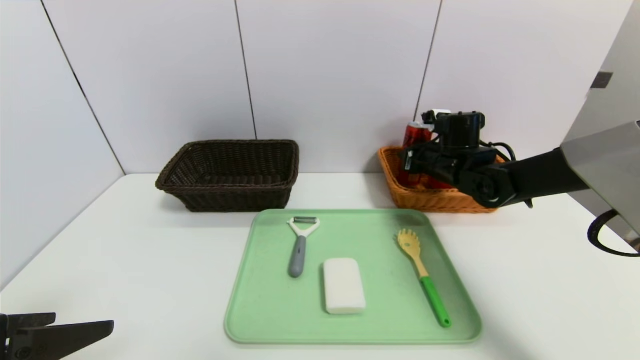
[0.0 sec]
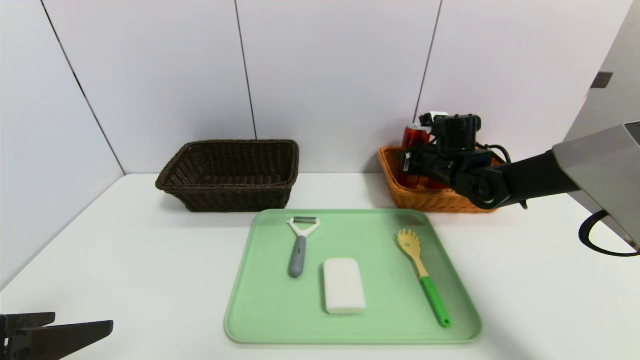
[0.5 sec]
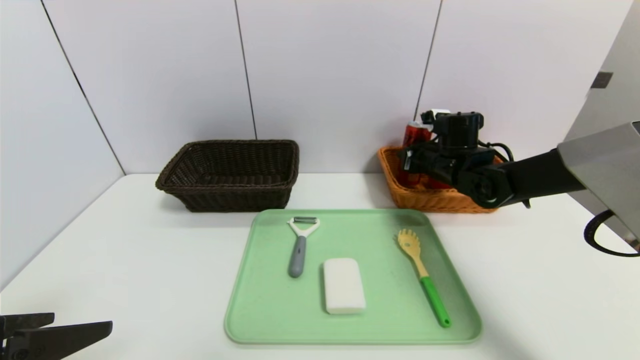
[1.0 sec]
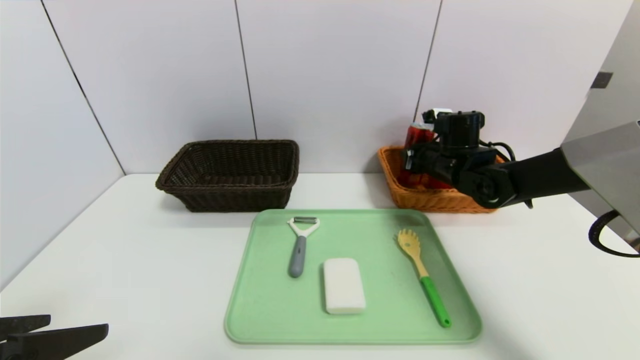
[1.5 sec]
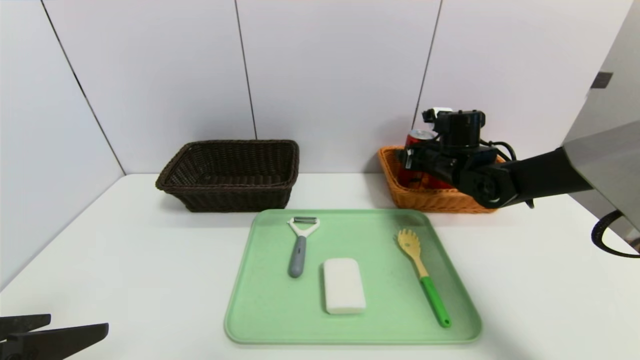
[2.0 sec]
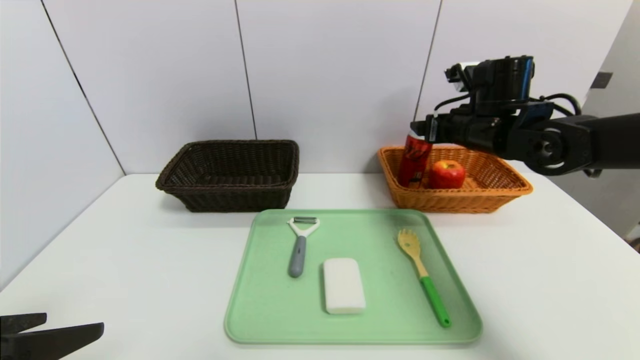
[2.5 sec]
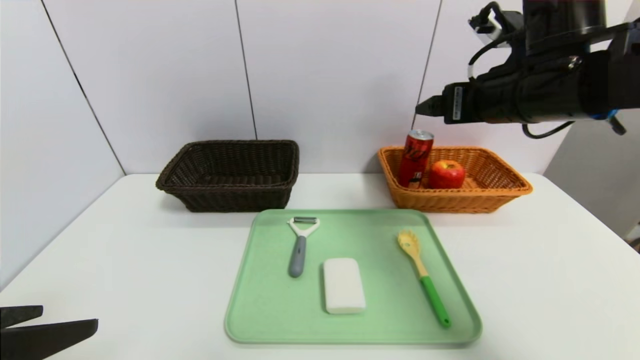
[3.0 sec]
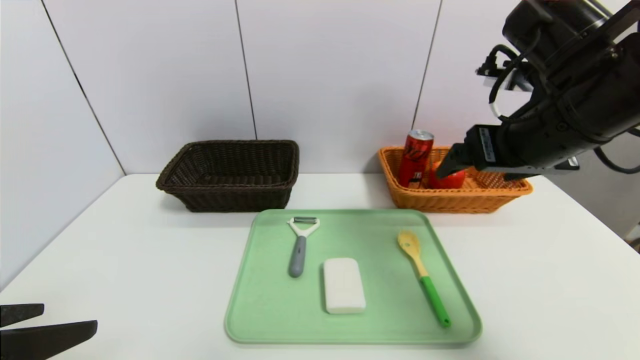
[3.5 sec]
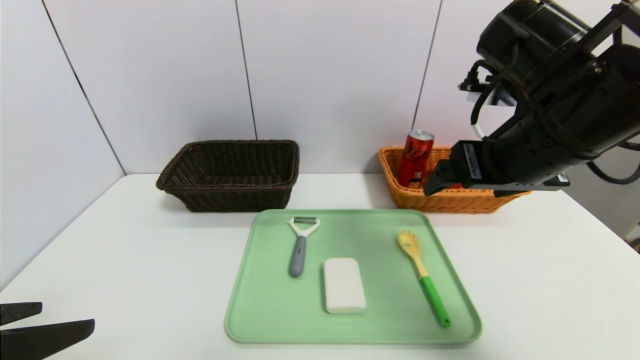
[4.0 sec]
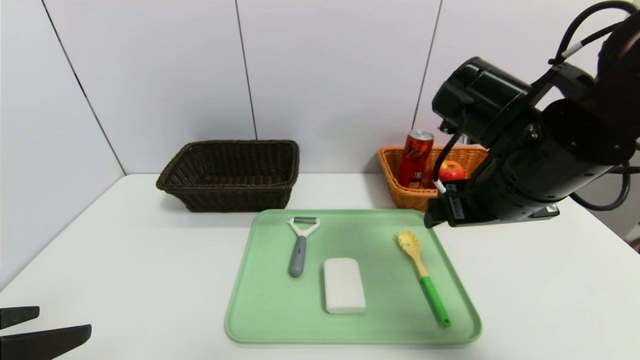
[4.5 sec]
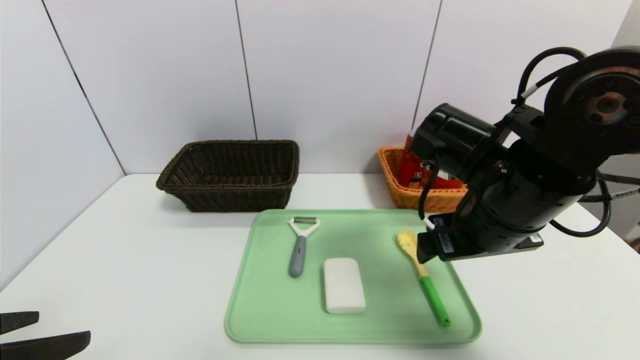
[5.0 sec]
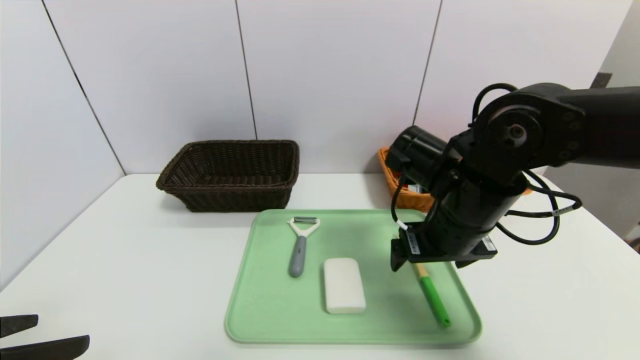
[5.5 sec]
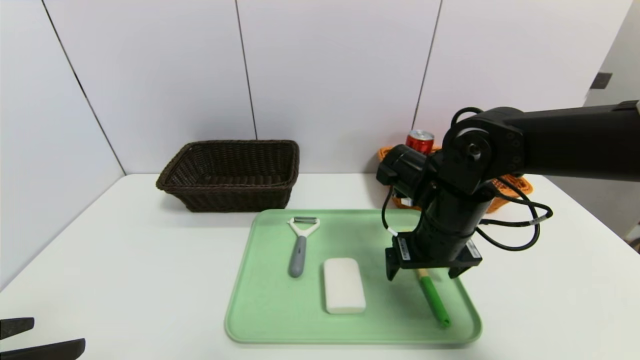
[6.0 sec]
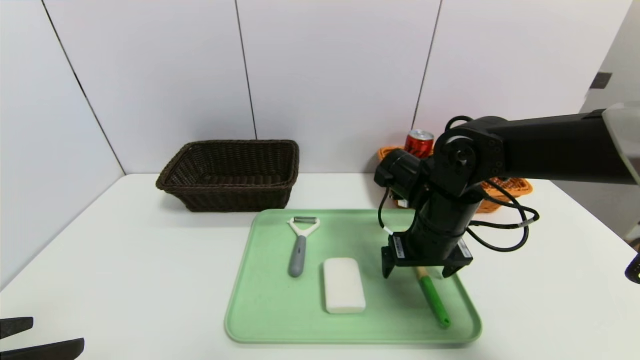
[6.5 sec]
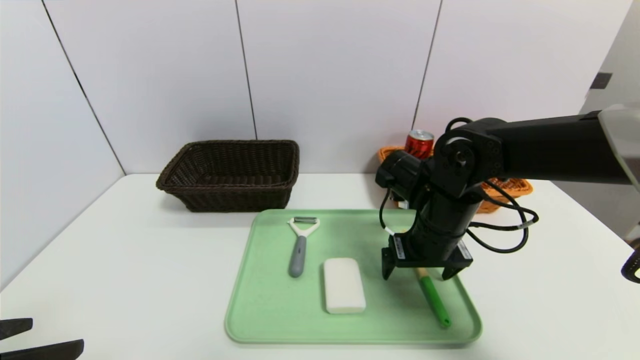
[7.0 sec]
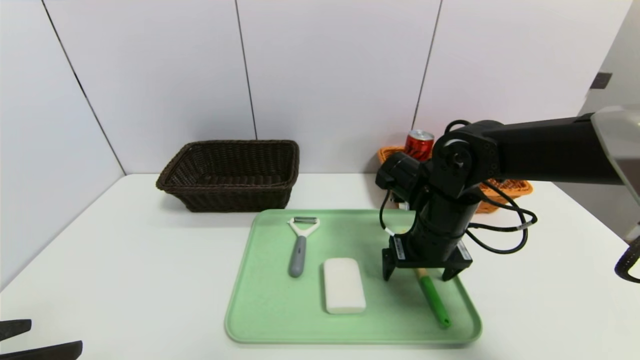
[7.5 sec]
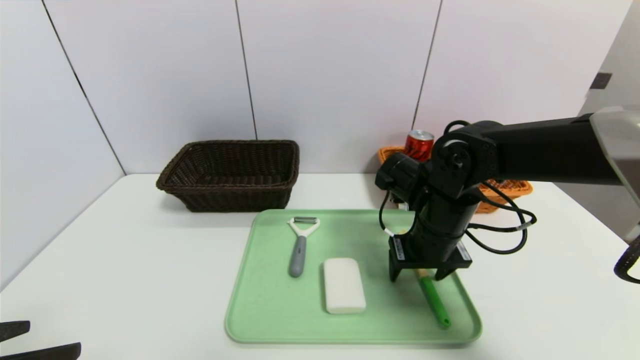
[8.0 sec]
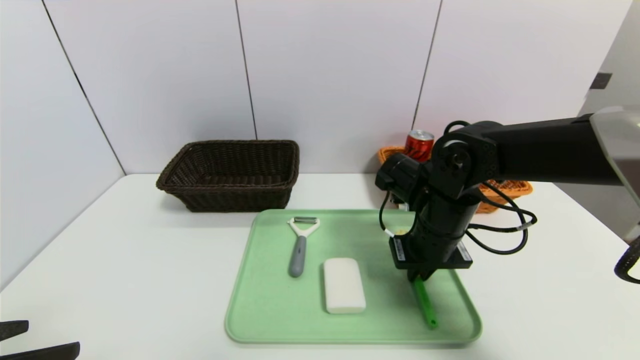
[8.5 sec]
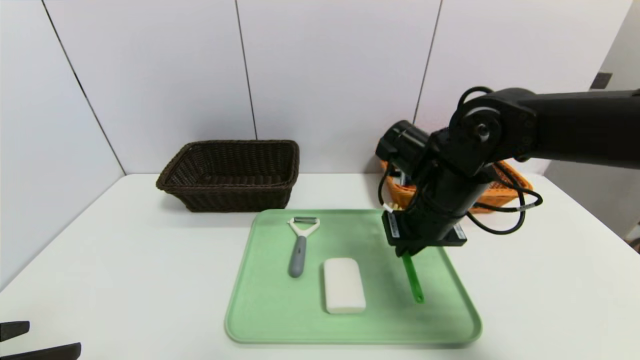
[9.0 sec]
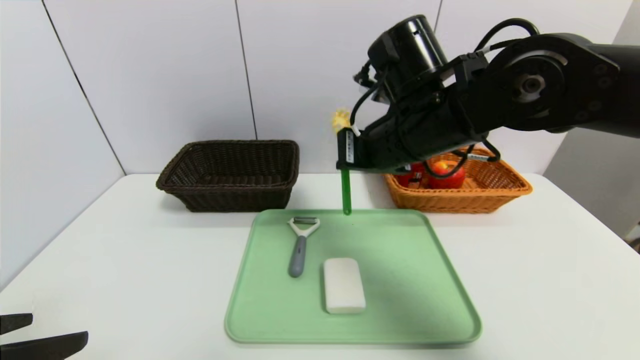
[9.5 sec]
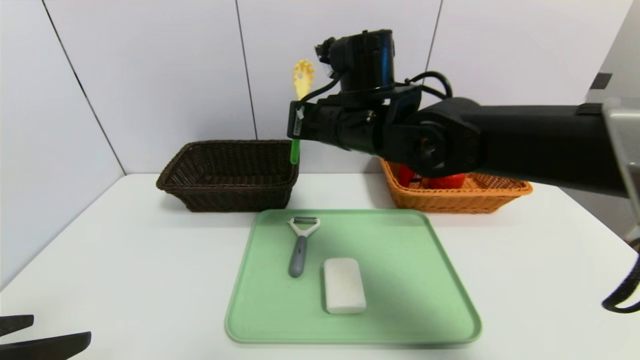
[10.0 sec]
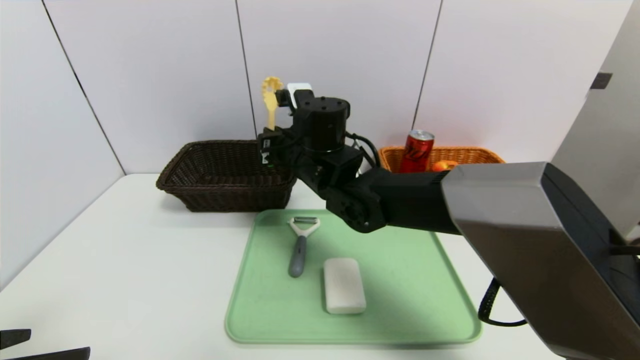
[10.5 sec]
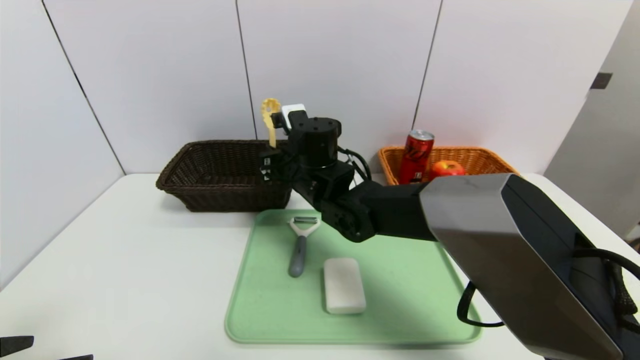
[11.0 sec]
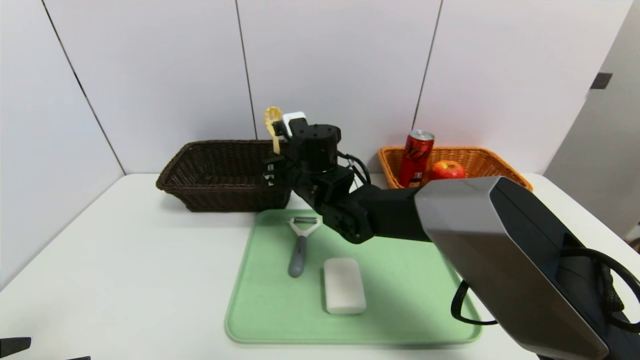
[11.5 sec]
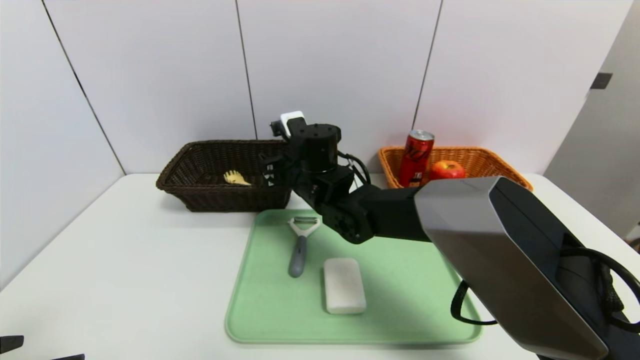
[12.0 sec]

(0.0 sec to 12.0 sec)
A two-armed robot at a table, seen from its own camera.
Task of the whole recording: place the food in the right basket with the right gripper, and place the non food items in the left basket with the left gripper.
Step, 0.0 sec - 2.5 sec: Grasp the canned cola and put it in the right basket.
0.0 sec - 2.0 sec: Both grippers stay about where they are.
2.0 sec - 4.0 sec: The right gripper goes roughly 25 cm backward and upward.
4.0 sec - 6.0 sec: The right gripper moves downward, roughly 15 cm.
6.0 sec - 8.0 sec: The grippers move only a little.
8.0 sec - 10.0 sec: The right gripper moves upward and to the left, about 15 cm, and closes.
10.0 sec - 12.0 sec: The right gripper moves downward and to the left, some 10 cm, and opens up.

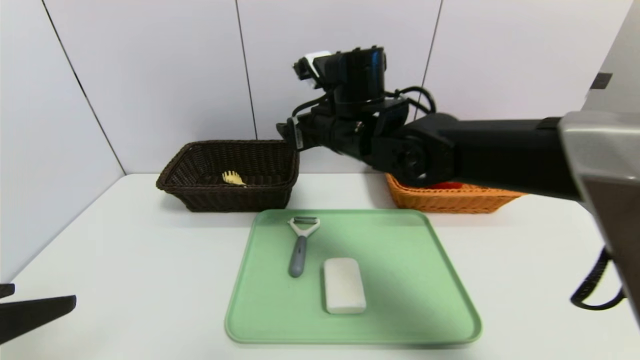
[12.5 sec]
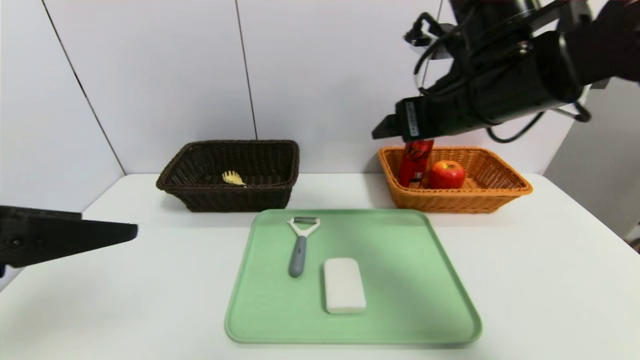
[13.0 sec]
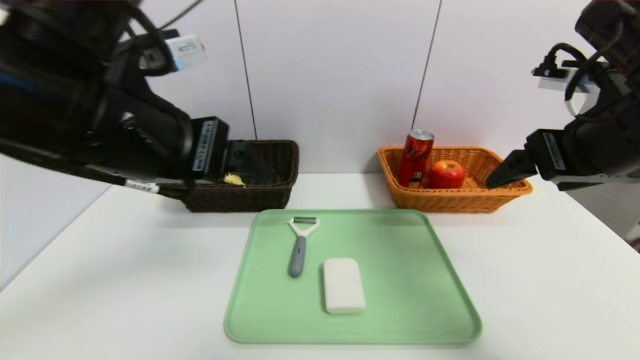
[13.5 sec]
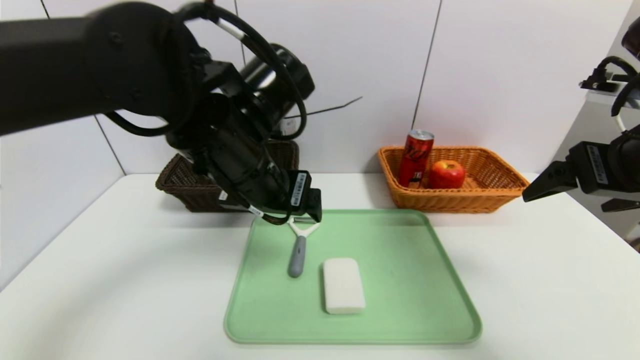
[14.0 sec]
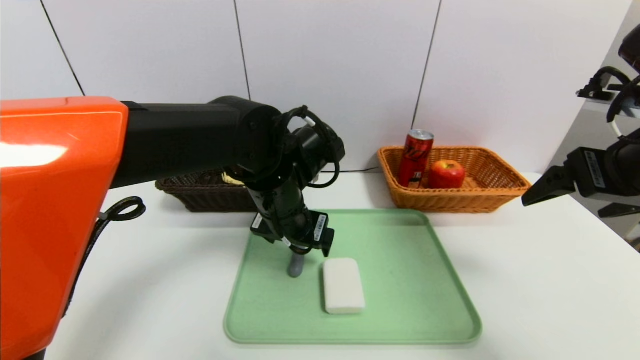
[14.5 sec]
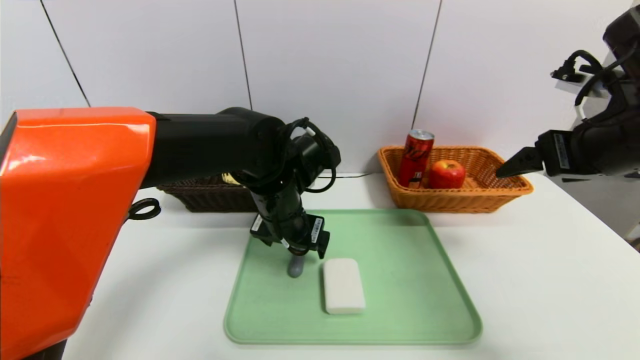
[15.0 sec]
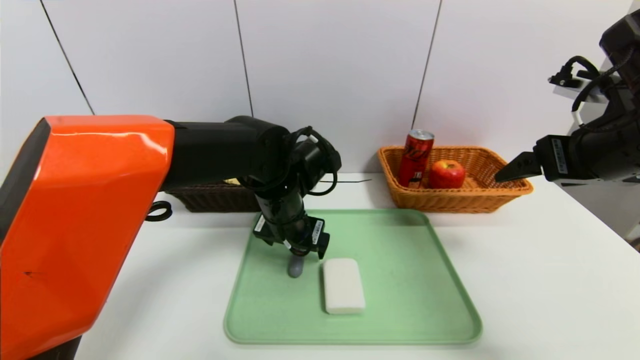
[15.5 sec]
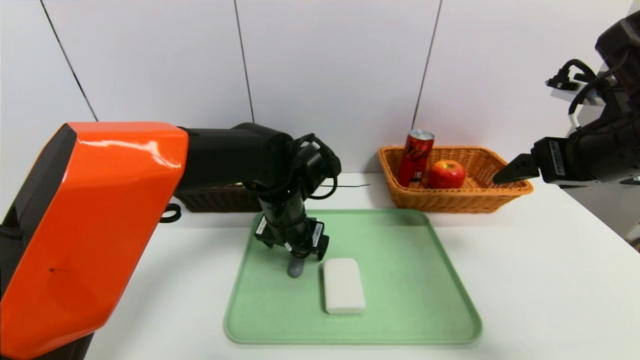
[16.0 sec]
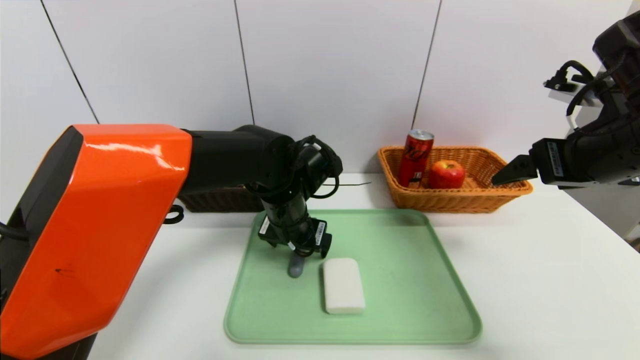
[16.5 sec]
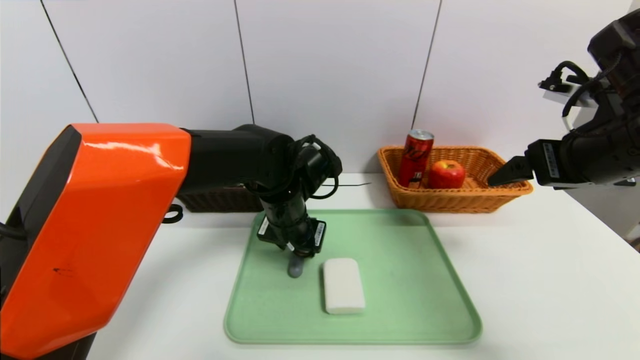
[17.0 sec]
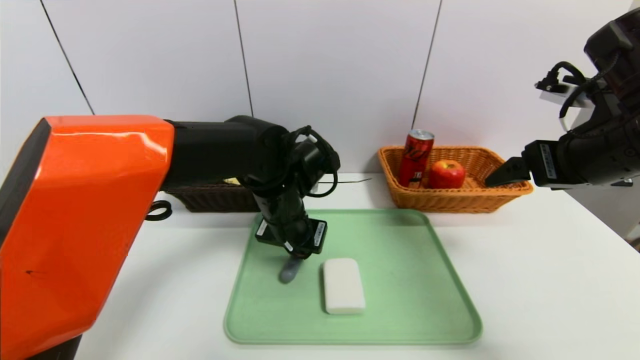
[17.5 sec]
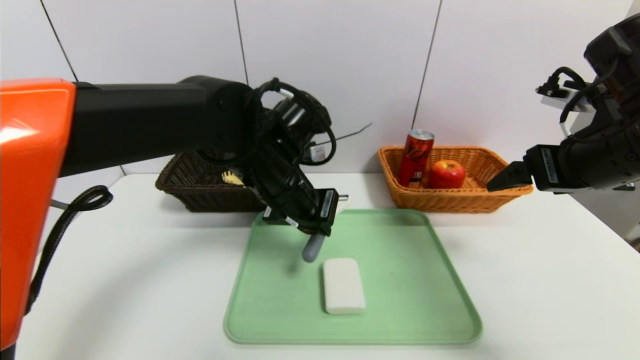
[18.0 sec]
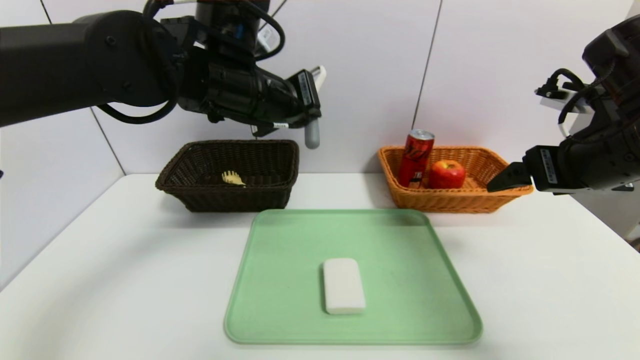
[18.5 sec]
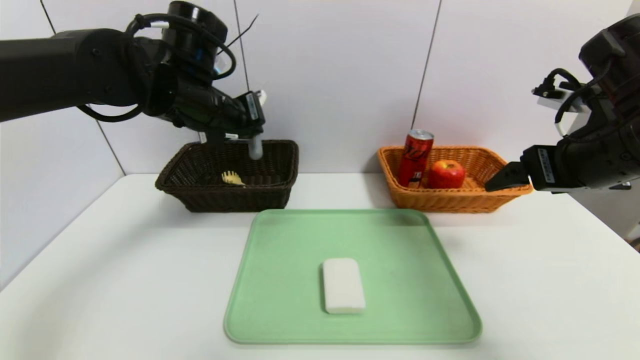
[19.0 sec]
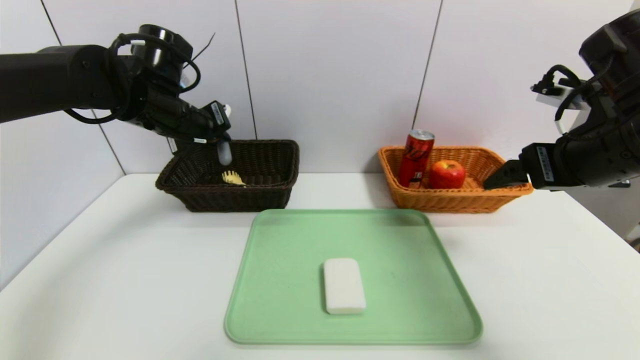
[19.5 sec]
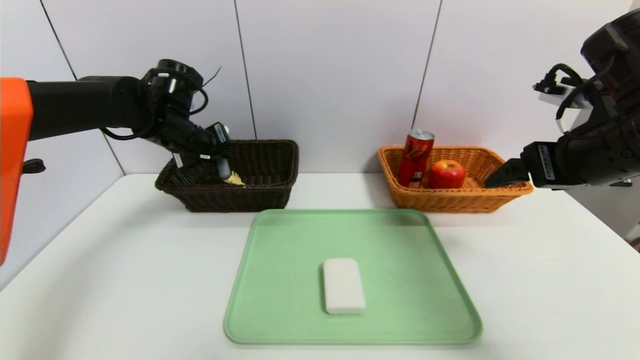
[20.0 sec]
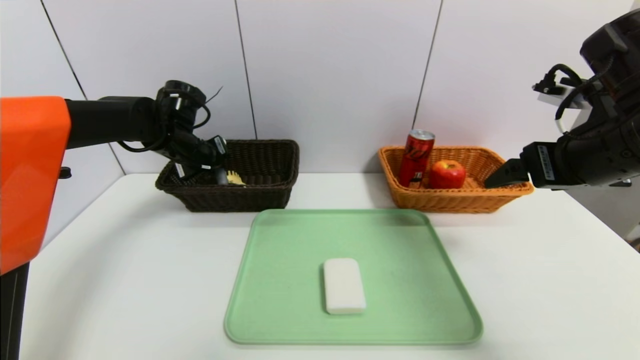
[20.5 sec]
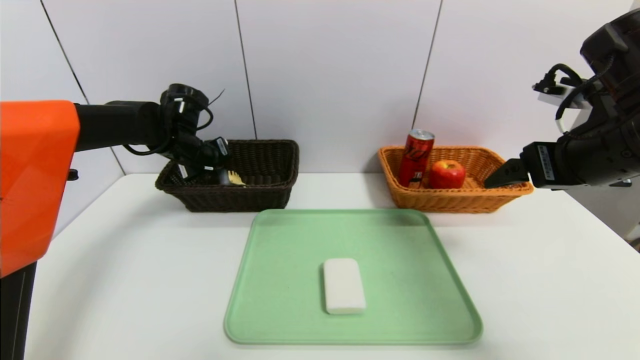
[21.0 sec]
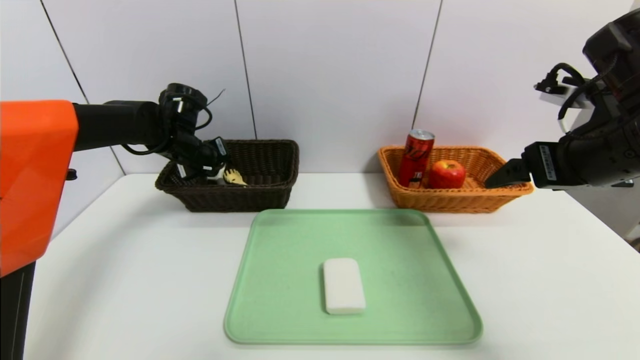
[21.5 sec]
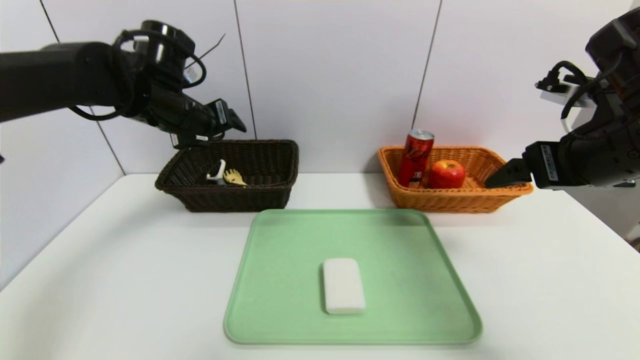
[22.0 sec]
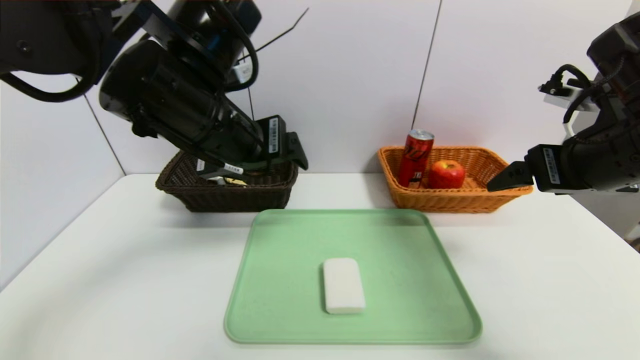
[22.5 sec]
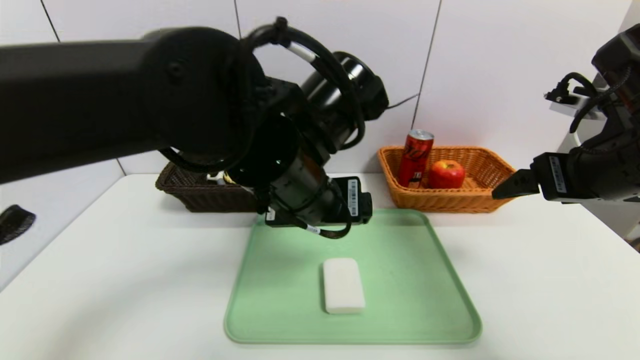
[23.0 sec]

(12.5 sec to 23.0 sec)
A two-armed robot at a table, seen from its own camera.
Task of the whole recording: place the food in the right basket with the right gripper, and place the non food items in the left basket with the left gripper.
Step, 12.5 sec - 21.5 sec: Grasp the peeler and put it in the left basket.
12.5 sec - 14.5 sec: The right gripper heads to the right and backward, covering approximately 30 cm. The left gripper is displaced forward and to the right by about 35 cm.
14.5 sec - 16.5 sec: The left gripper moves about 5 cm.
16.5 sec - 19.0 sec: The left gripper is displaced upward and to the left by approximately 20 cm, and closes.
19.0 sec - 21.0 sec: The left gripper moves downward, forward and to the left, about 15 cm.
21.0 sec - 23.0 sec: The left gripper is displaced to the right and backward by roughly 30 cm, and opens up.
